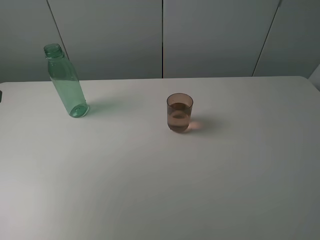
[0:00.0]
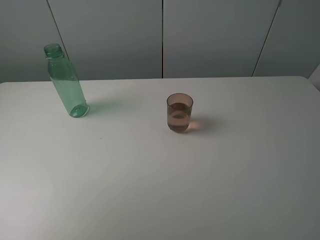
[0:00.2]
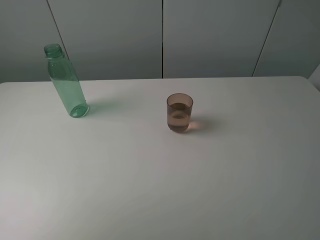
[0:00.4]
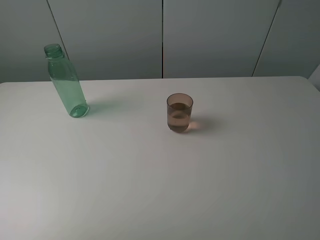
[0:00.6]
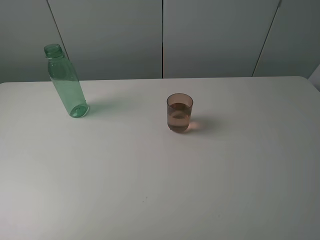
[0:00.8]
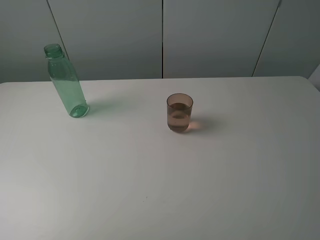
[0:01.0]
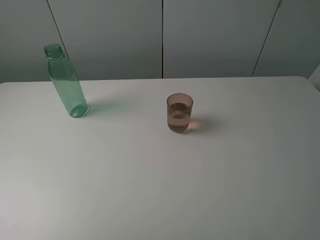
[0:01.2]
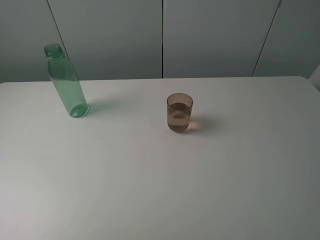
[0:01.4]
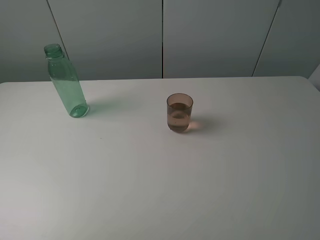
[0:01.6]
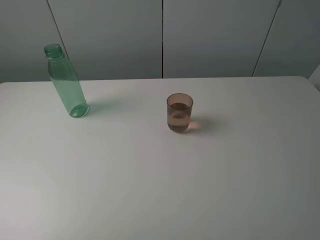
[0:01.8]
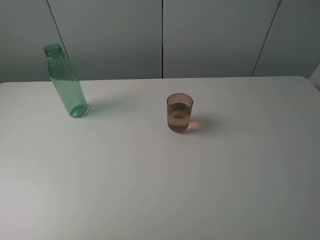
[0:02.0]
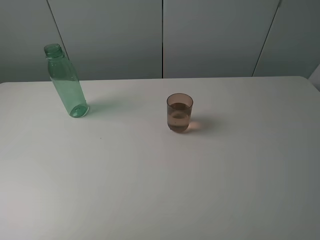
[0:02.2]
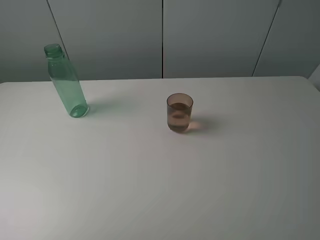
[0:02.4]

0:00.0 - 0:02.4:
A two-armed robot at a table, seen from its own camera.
Task of the whole recording: pick up the bottle filled with water and pour it into the pink cup.
0:00.0 - 0:01.2: The left gripper travels backward by about 15 cm.
0:01.2 - 0:02.4: Both grippers stay put.
